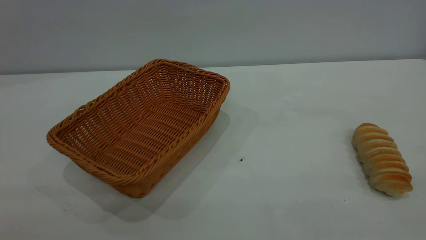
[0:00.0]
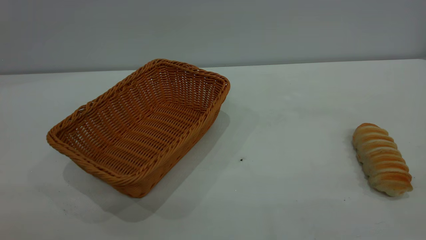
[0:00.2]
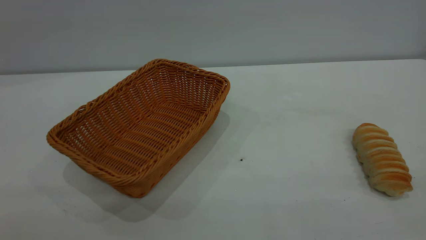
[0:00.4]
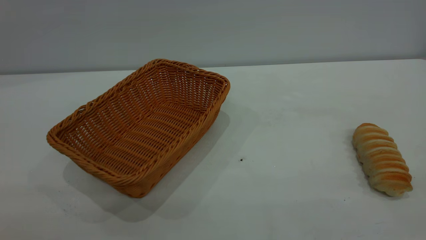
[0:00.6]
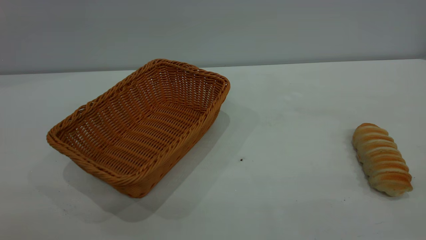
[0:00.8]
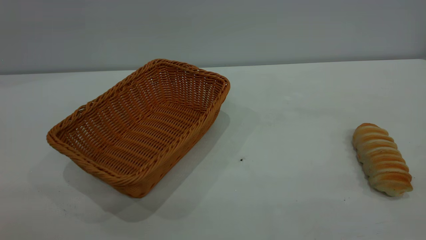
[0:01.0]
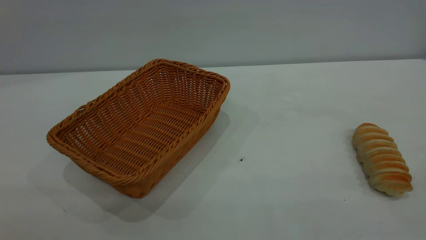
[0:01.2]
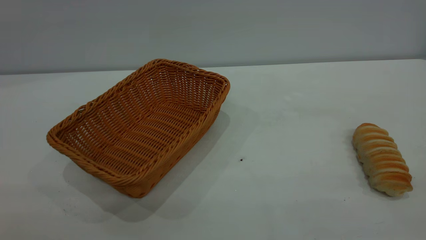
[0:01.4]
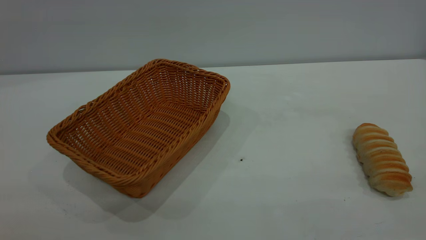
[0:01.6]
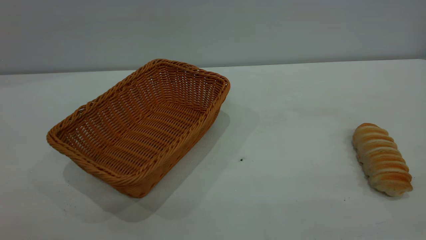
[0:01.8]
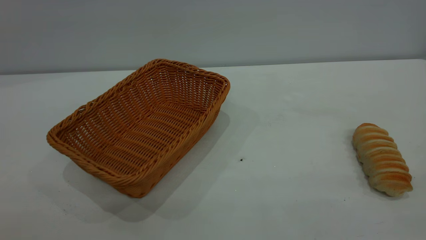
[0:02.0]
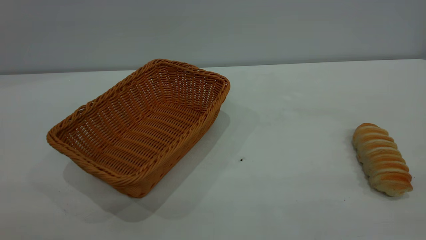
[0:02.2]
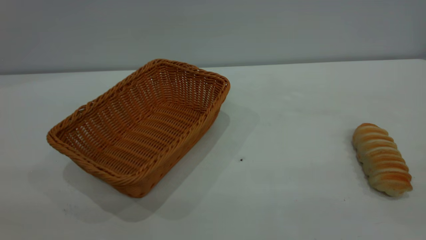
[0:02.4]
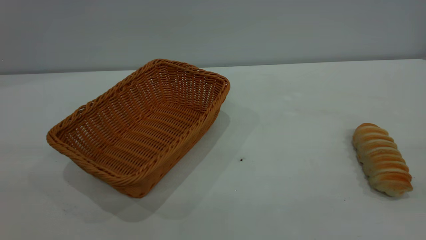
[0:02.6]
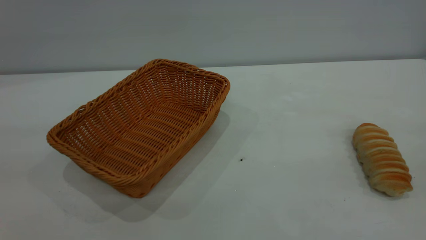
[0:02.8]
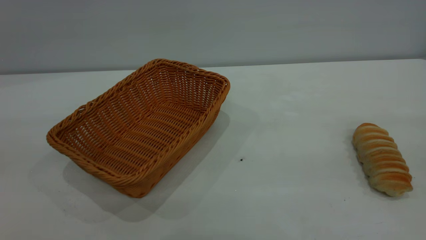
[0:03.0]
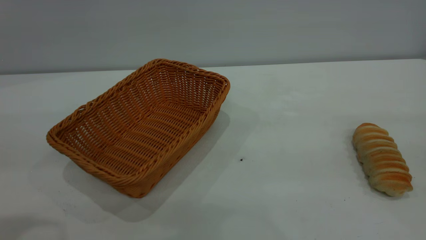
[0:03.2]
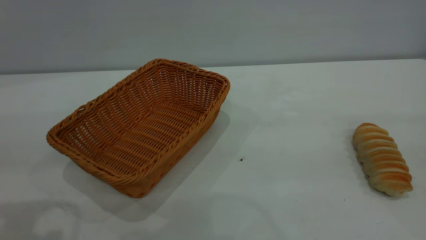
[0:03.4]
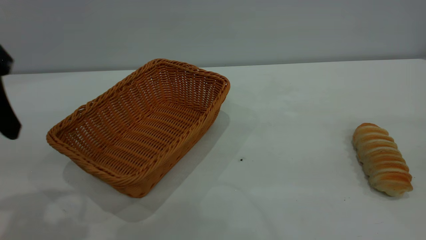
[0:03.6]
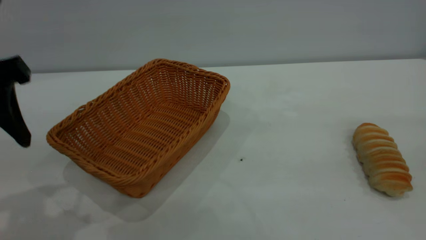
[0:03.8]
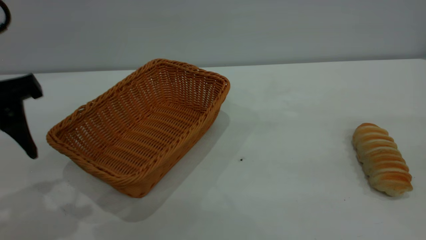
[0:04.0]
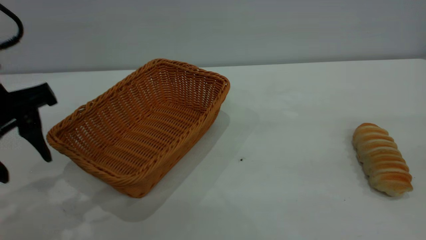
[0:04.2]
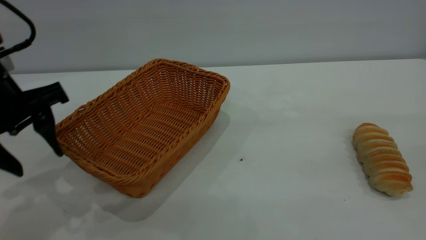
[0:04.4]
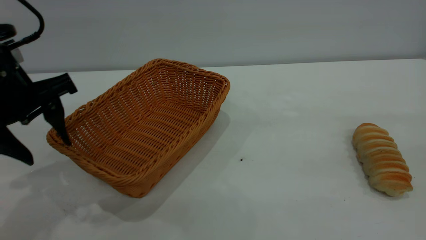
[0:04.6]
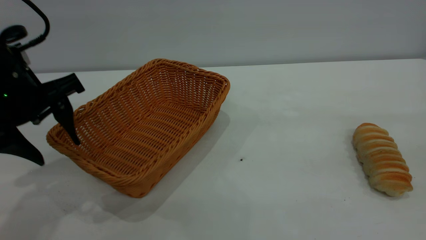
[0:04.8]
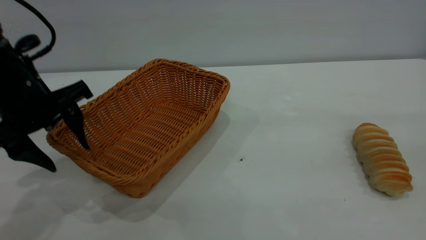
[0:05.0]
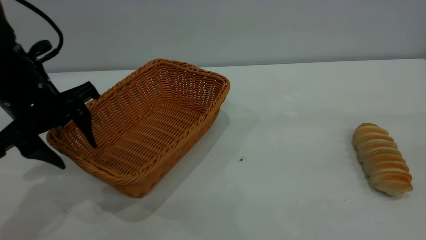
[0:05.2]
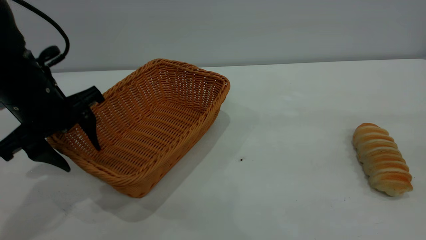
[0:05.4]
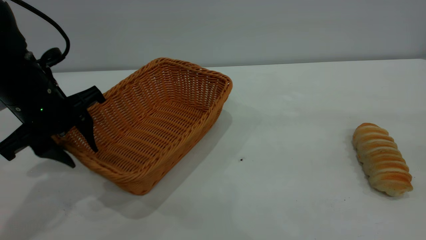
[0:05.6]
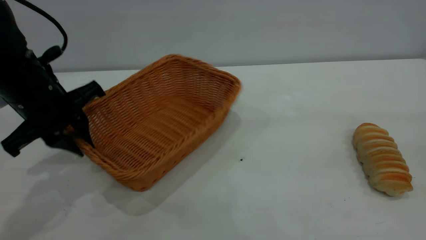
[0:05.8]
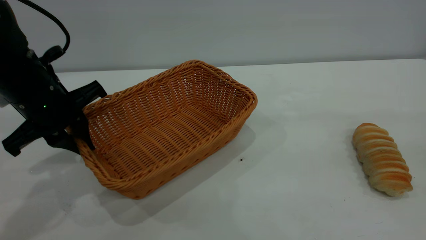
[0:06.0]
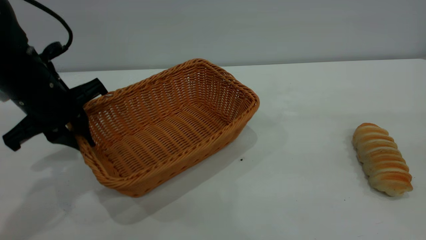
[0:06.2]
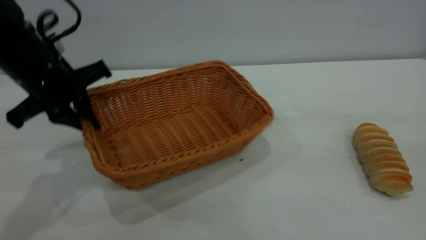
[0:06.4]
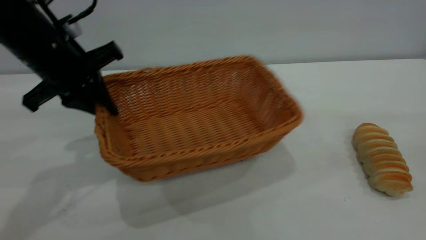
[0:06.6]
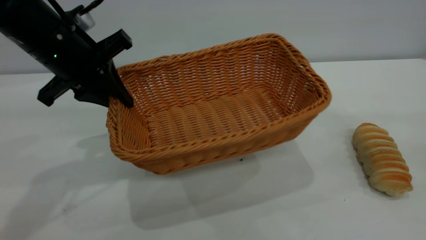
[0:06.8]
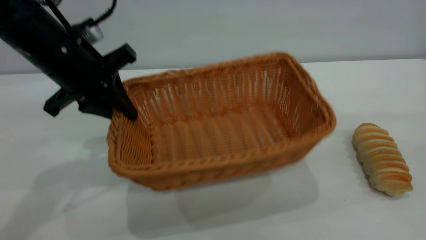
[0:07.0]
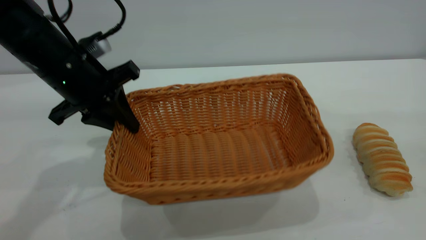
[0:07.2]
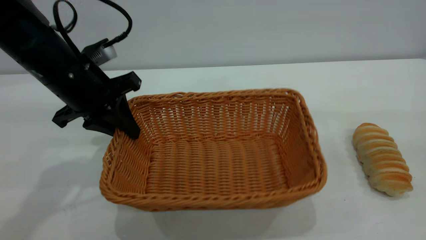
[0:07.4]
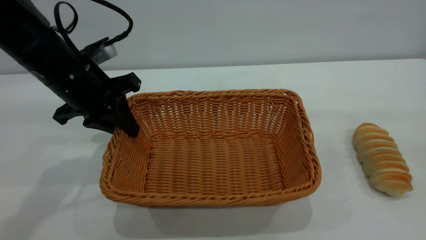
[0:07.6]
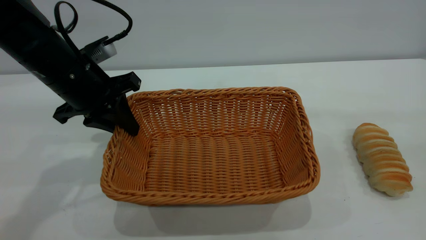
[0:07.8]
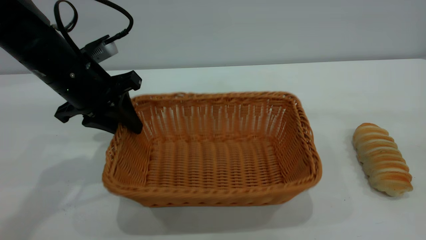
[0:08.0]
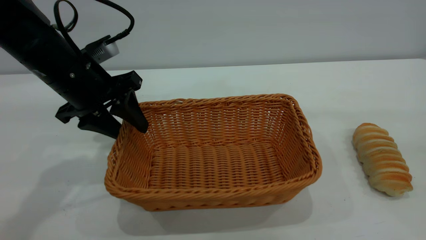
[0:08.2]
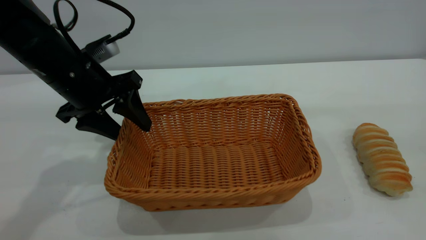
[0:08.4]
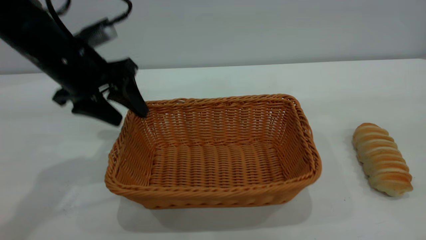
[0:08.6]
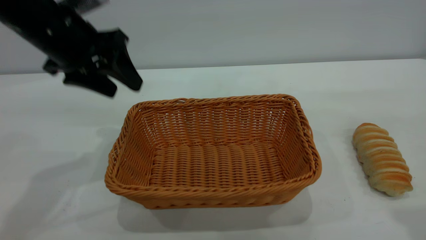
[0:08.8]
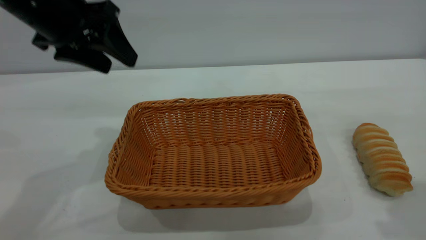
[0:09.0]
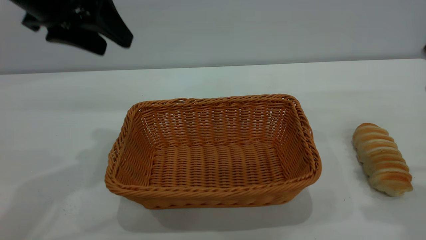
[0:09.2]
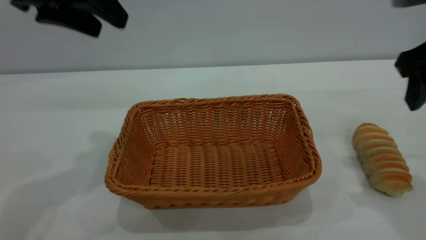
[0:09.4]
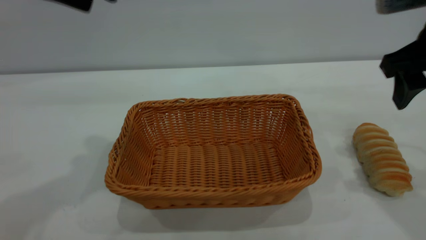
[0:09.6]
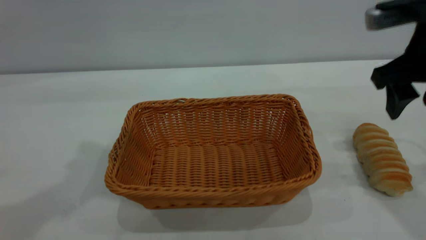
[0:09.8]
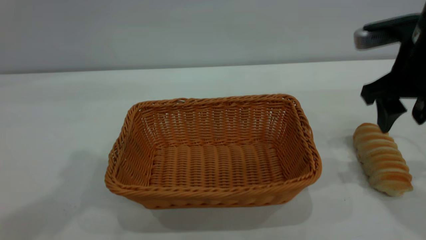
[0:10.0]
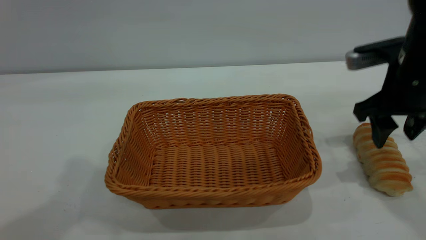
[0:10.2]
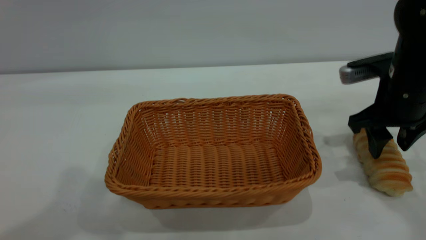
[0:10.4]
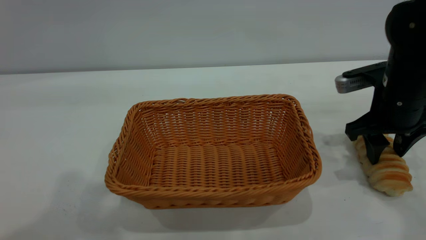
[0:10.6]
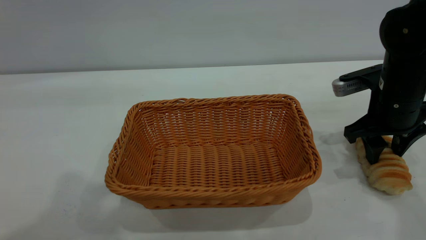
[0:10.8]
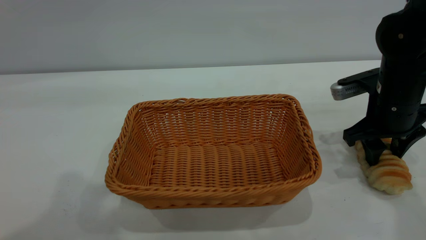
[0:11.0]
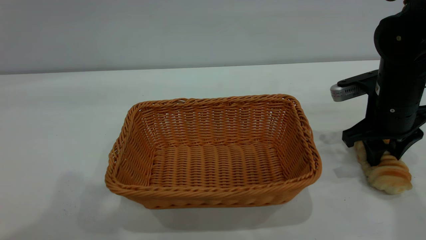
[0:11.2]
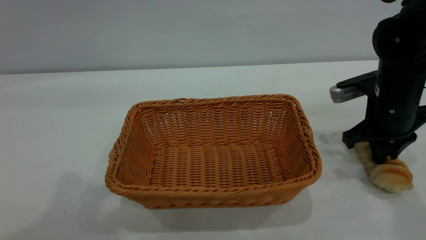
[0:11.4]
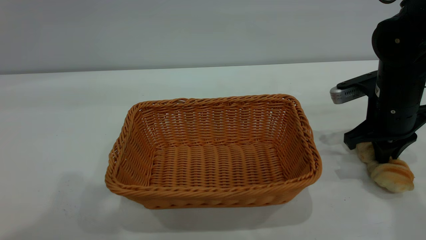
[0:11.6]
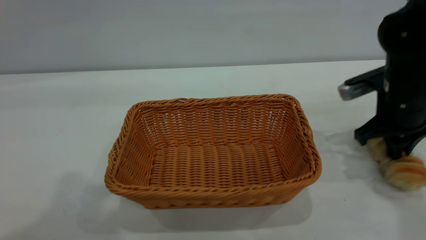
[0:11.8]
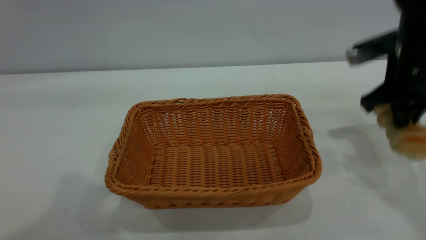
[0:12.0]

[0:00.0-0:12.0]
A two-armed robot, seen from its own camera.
Task of the whole recording: One hand grasps the yellow basket and places it in the middle of the table, while the other hand picks up the long bread and puts it into the yellow basket.
Step, 0:00.0 to 0:08.6: Move the basket to the center of view.
0:03.0 to 0:04.4: The left gripper shifts about 20 cm downward and forward.
0:04.4 to 0:06.0: The left gripper moves forward, approximately 5 cm, and closes.
0:07.6 to 0:09.0: The right gripper travels forward and downward by approximately 15 cm, and opens its fingers. Meanwhile the left gripper heads upward, covering roughly 10 cm, and opens up.
0:09.0 to 0:10.4: The left gripper is displaced upward and backward by approximately 20 cm. The right gripper moves downward and forward, about 20 cm.
0:10.4 to 0:12.0: The right gripper moves approximately 5 cm, and closes.

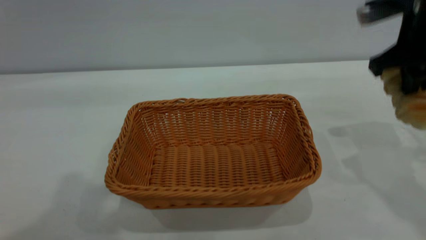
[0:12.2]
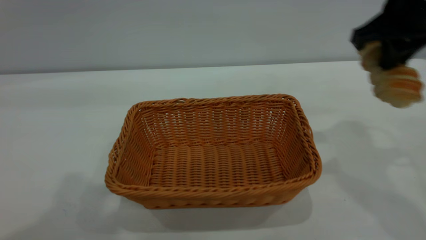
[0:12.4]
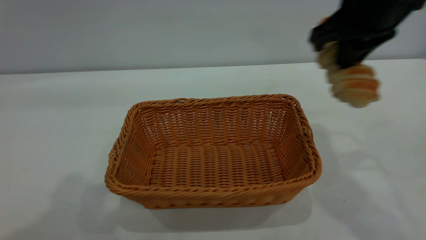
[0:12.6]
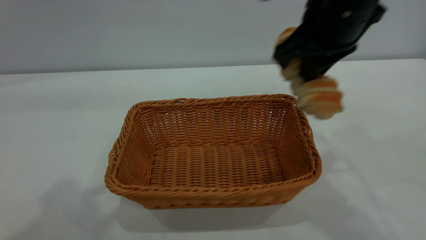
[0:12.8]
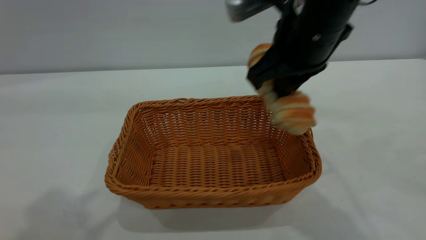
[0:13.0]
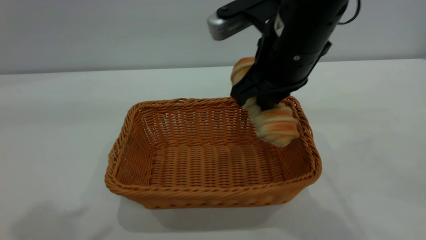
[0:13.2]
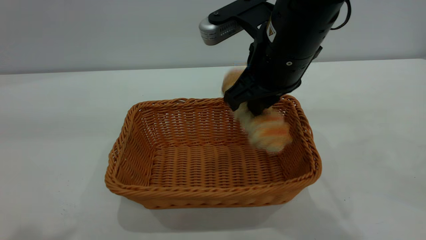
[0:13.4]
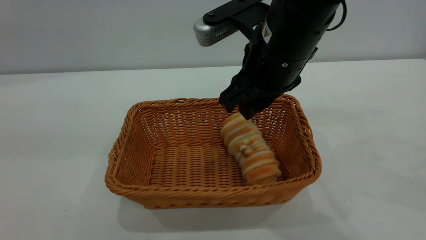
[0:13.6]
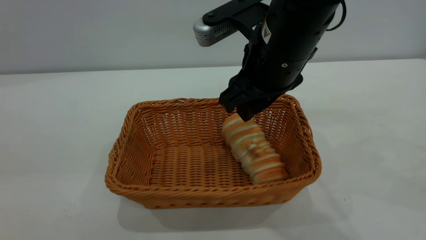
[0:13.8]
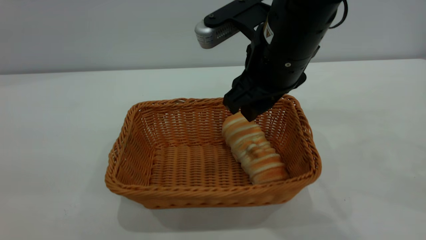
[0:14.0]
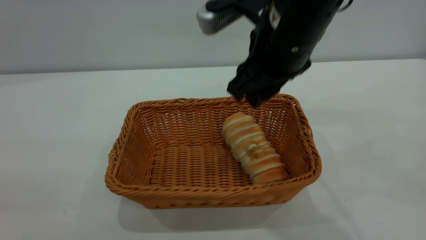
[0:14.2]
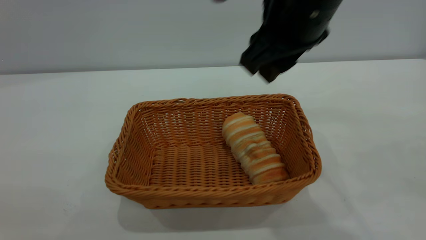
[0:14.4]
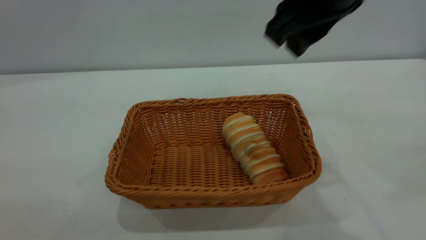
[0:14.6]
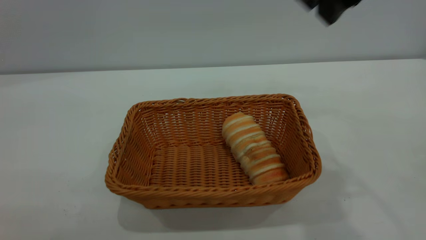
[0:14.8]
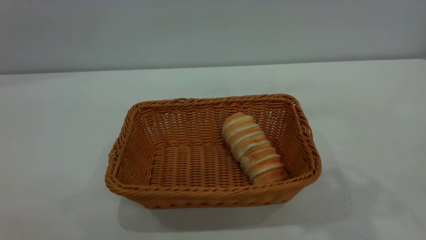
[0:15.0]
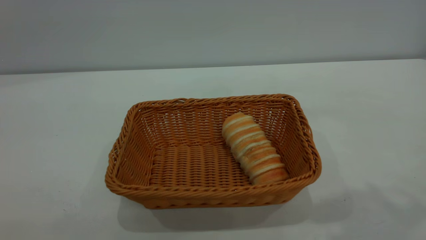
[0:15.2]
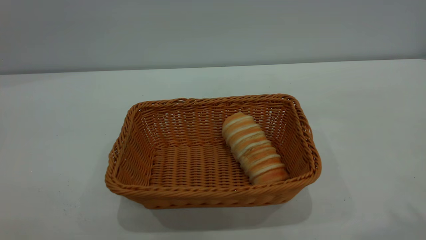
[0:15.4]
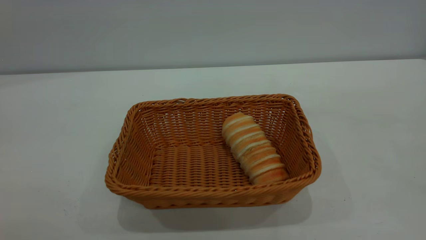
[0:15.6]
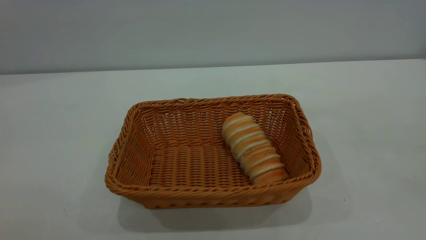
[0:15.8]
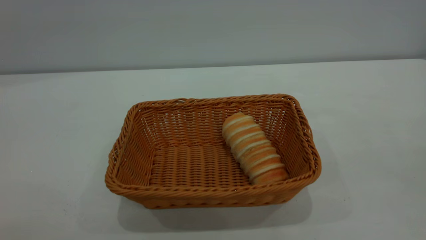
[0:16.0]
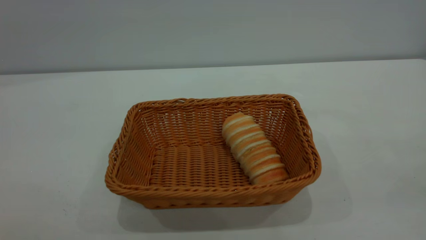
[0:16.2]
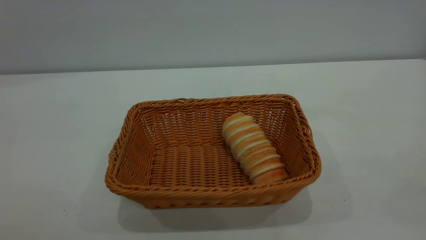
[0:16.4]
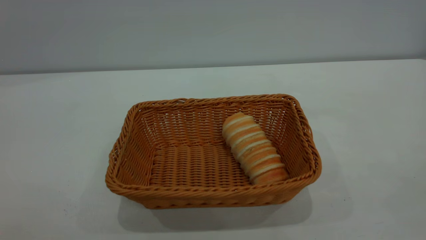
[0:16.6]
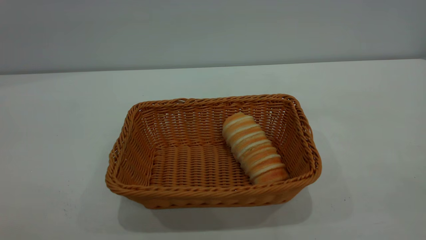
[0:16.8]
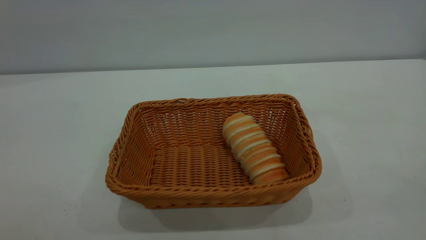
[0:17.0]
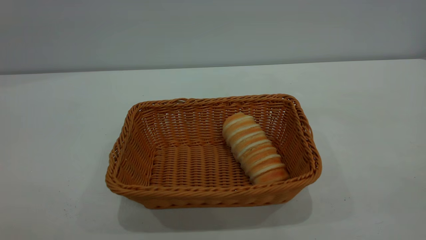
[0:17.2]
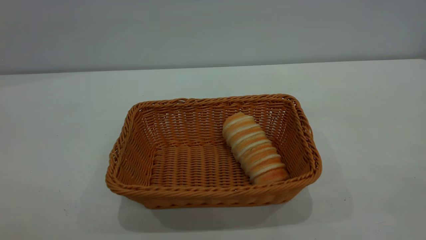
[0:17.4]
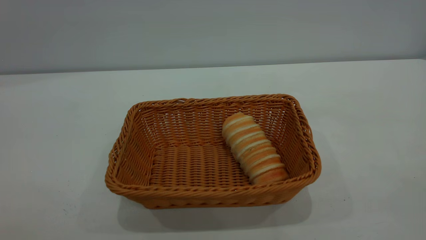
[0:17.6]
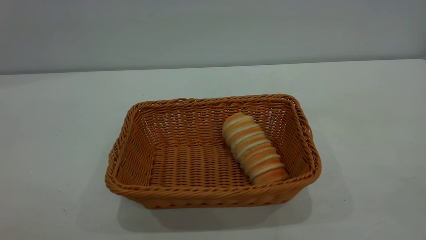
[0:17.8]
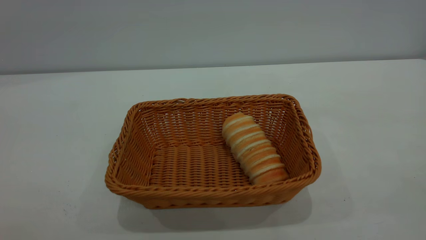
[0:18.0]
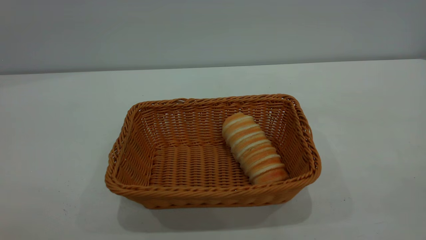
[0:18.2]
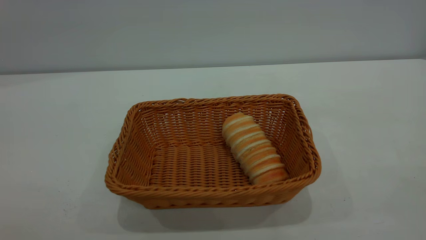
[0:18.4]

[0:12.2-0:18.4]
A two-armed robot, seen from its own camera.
Task of the whole recording: One hand grasps the yellow basket and places it in the middle of the table, while the other hand picks up the long bread and puts it into the yellow basket.
Step, 0:12.2 to 0:14.2: place the bread into the basket.
0:12.2 to 0:13.8: The left gripper moves backward, approximately 15 cm. The right gripper shifts approximately 20 cm to the left, and opens.
0:13.8 to 0:15.4: The left gripper shifts approximately 10 cm backward and downward, while the right gripper is displaced upward, to the right and backward by roughly 35 cm.
0:16.8 to 0:18.4: Both grippers stay put.
